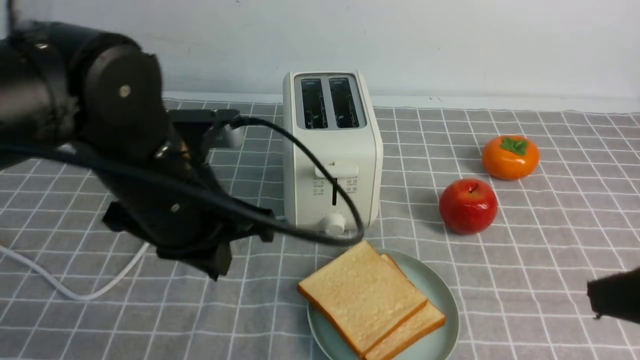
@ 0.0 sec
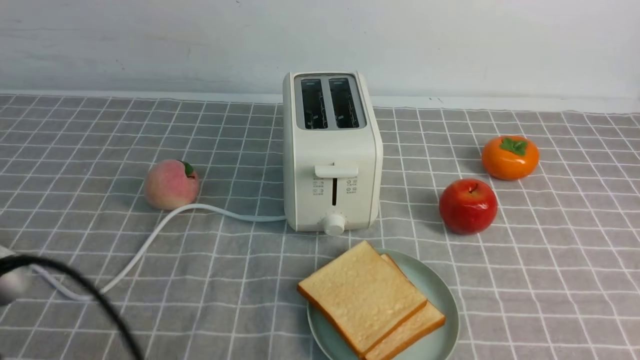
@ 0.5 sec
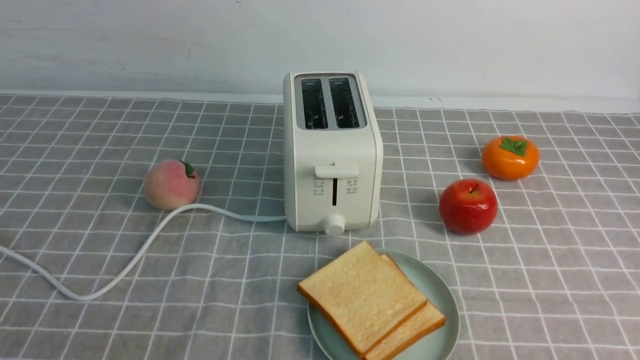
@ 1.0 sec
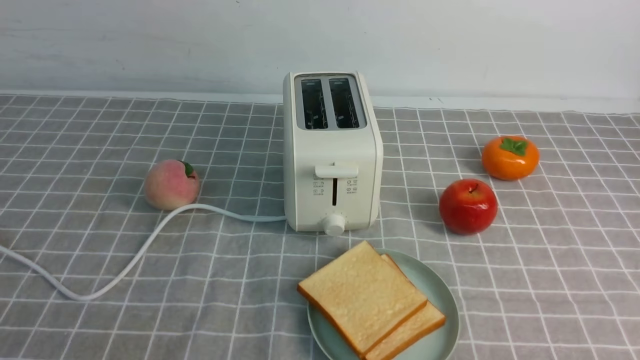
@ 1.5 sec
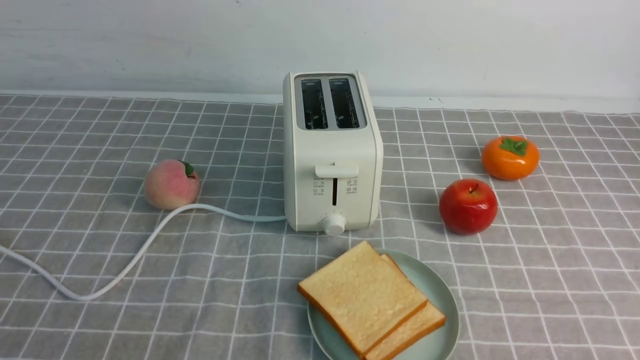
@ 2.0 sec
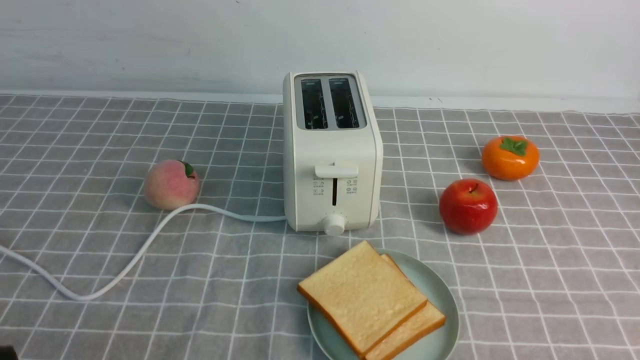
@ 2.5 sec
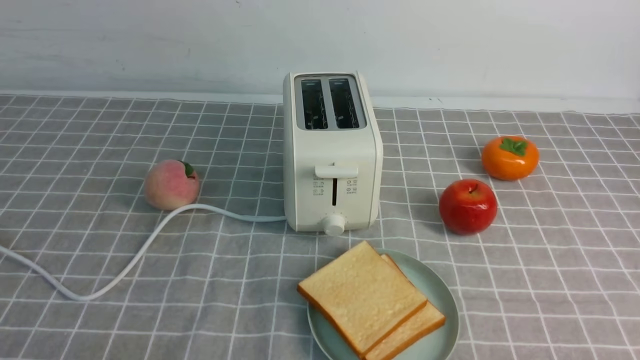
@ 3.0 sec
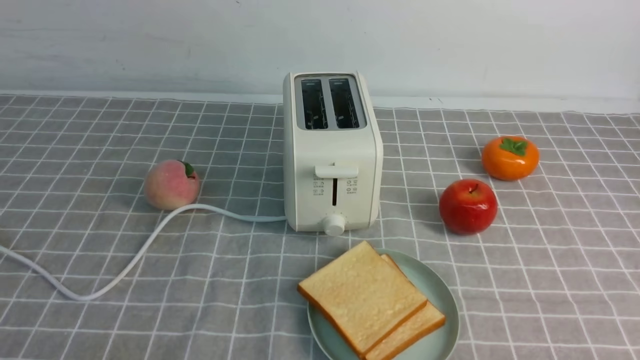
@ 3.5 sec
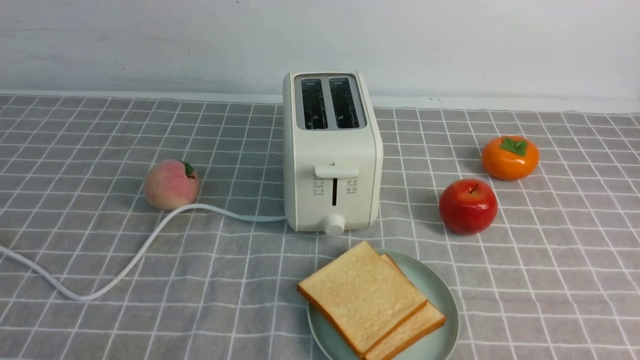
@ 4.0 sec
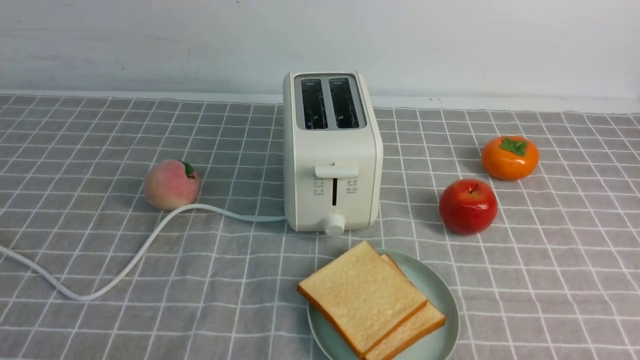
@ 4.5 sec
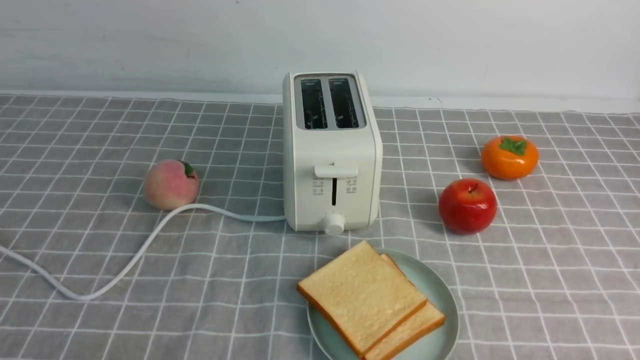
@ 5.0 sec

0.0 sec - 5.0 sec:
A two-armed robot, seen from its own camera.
Task of the whole recording: take toasted bread from bread machine on grey coffee table place on plate.
0.0 sec - 2.5 sec: The right gripper moves downward and backward, approximately 10 cm, and closes its fingers. The left gripper heads backward and to the left, covering approximately 25 cm.

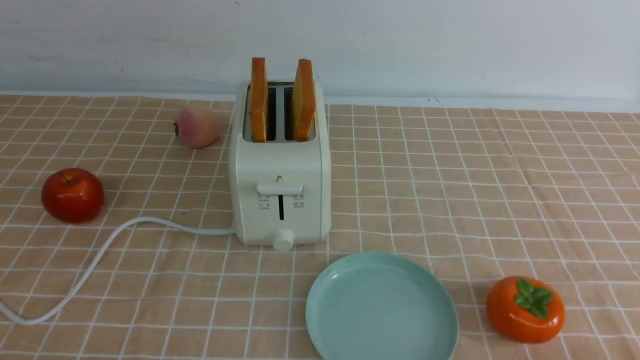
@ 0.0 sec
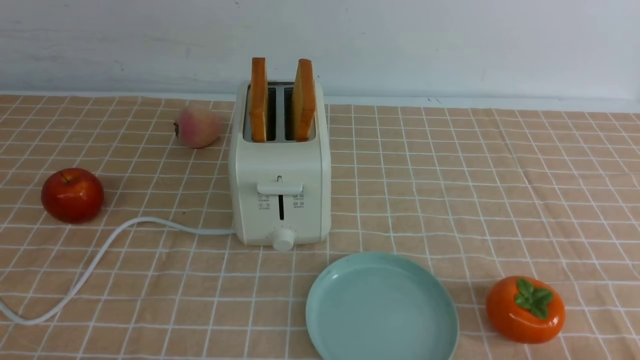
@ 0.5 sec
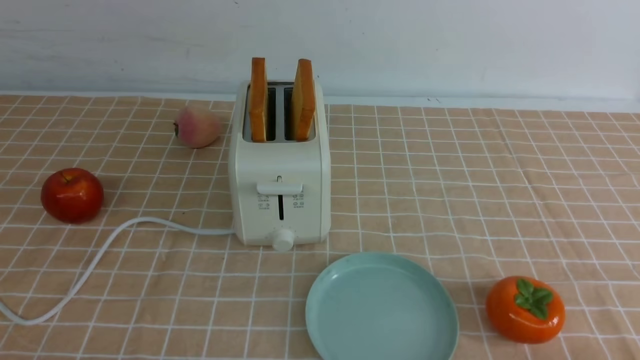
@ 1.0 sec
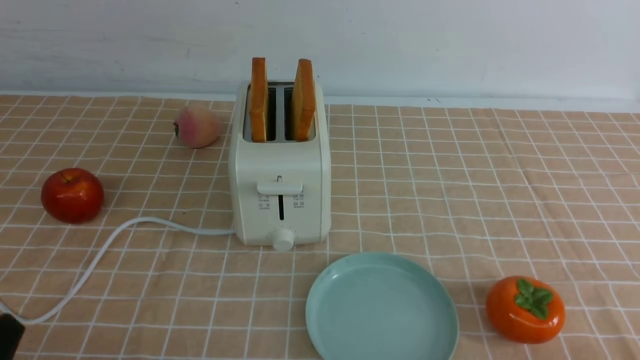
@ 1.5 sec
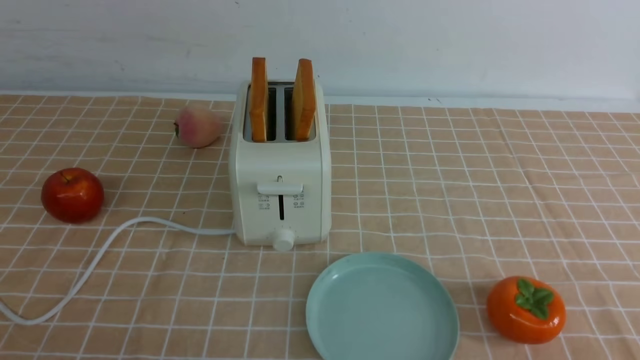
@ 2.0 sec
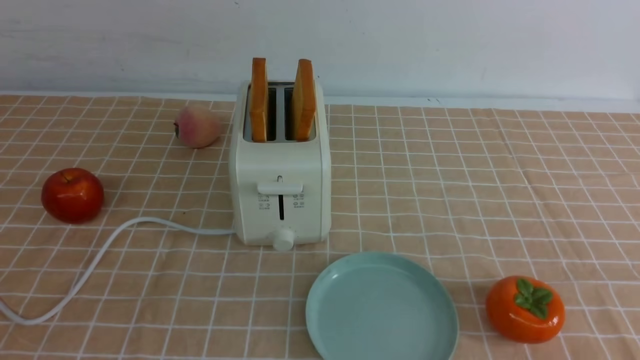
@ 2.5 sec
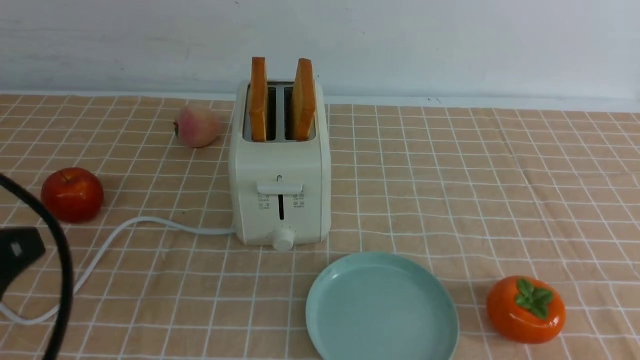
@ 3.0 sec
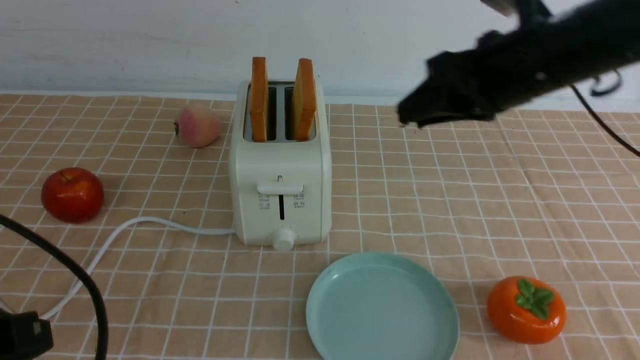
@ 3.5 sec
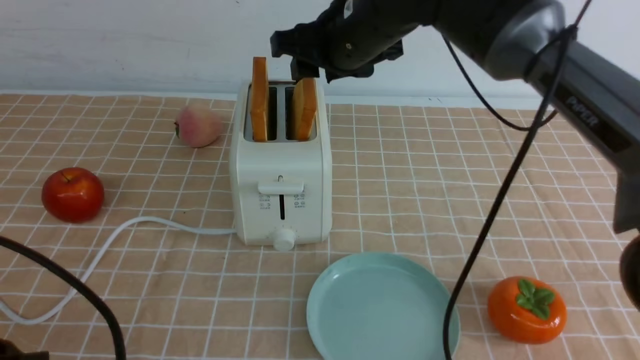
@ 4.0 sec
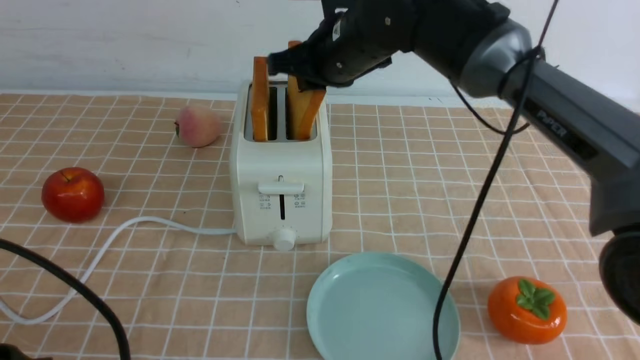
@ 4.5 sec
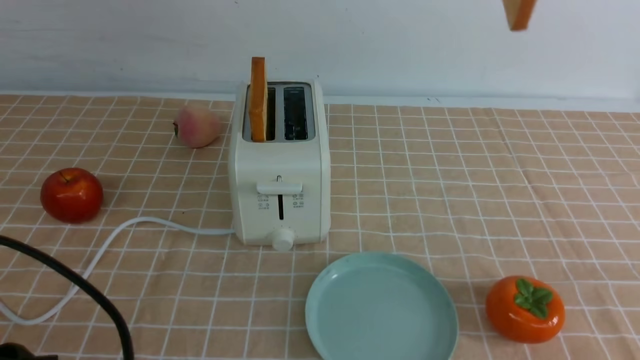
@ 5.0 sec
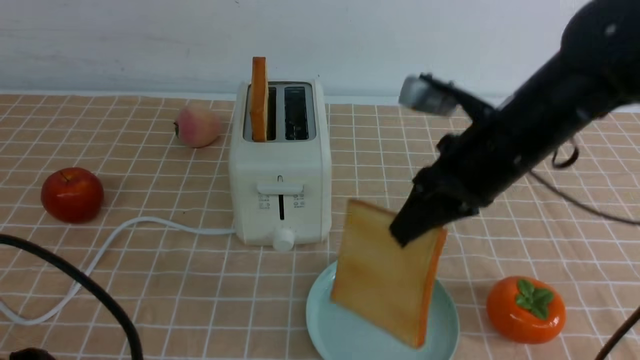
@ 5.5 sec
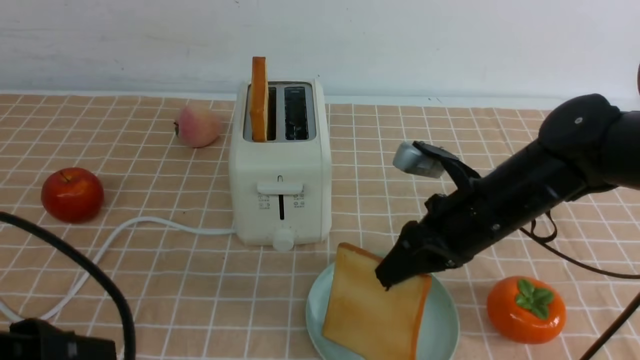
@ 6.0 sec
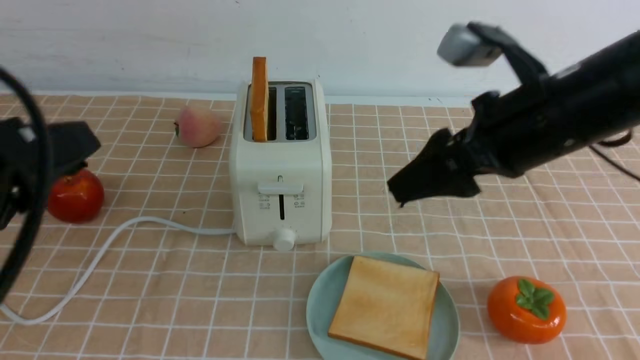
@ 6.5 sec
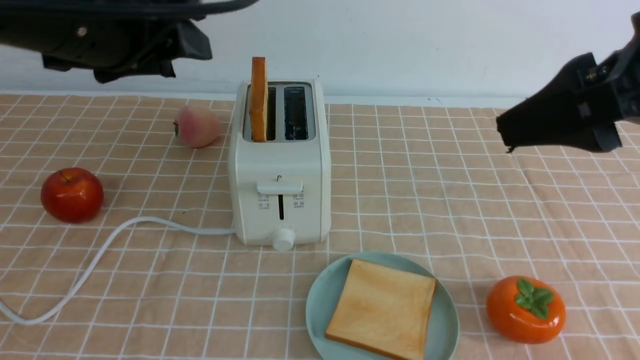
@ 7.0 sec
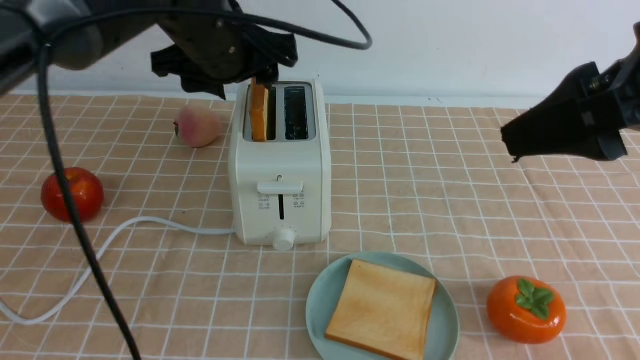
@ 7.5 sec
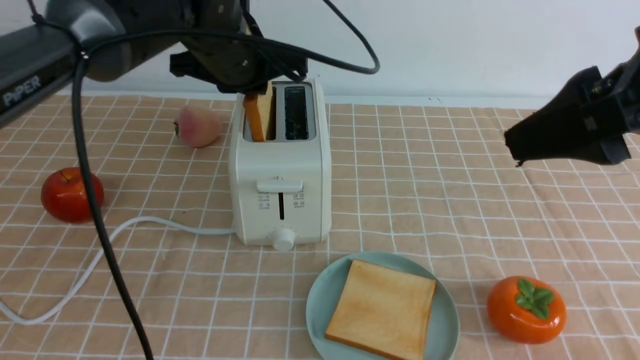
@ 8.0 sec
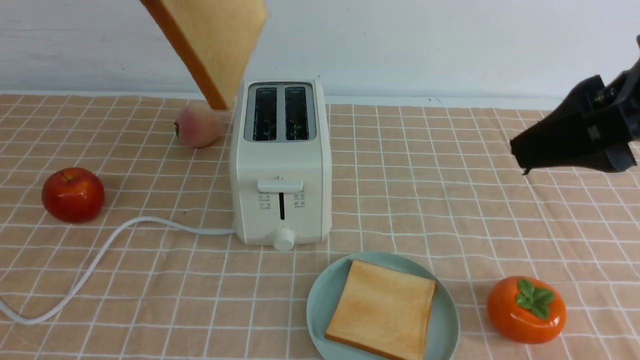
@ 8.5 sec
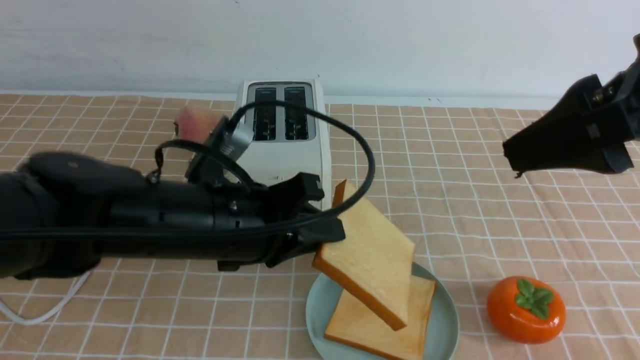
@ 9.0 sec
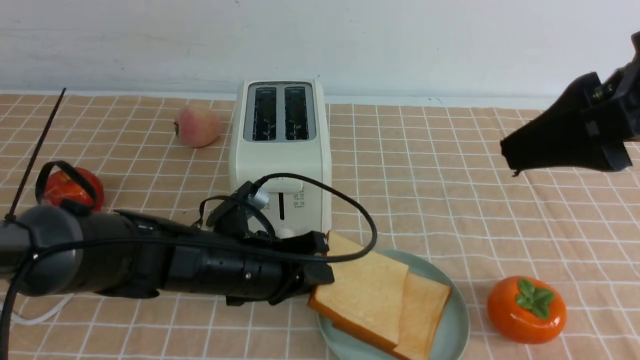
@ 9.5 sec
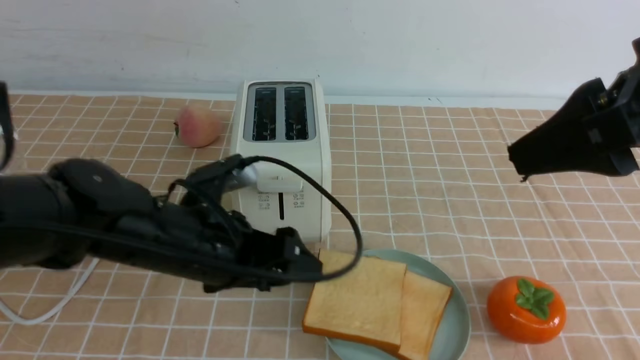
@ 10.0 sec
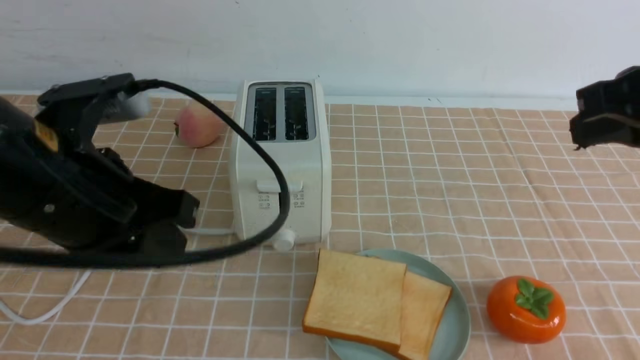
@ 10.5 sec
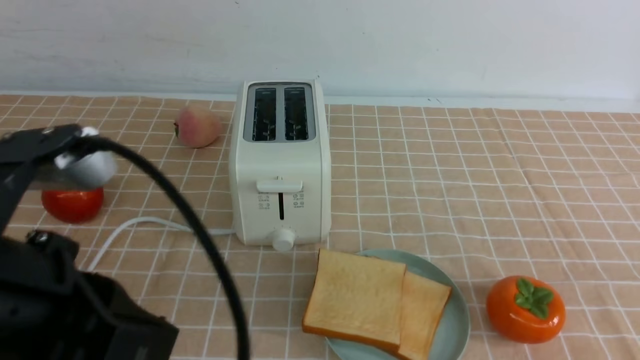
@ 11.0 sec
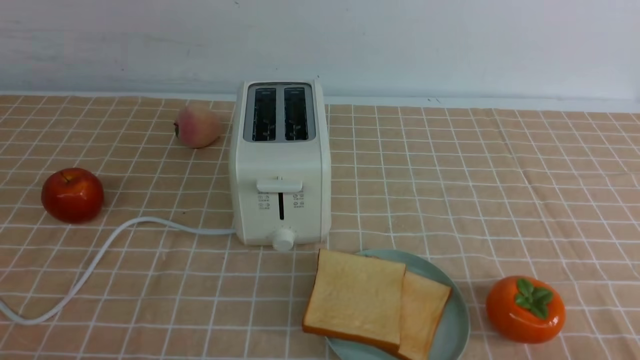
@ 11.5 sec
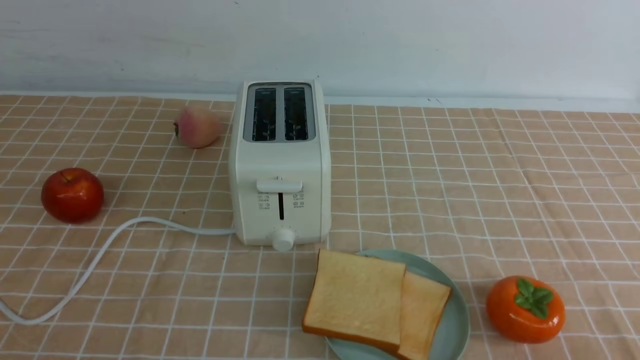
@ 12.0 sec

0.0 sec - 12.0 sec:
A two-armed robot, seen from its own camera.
Task of the whole recording: take toasted bread from bread machine on light coffee tablecloth place on plate.
Step, 0.0 sec - 4.5 sec: use the right arm to take out a slice of bread.
Step, 5.0 sec - 6.0 sec: use the right arm to put a slice of bread into the plate.
Step, 6.5 sec - 8.0 sec: use the left arm to take out a slice of bread.
Step, 8.5 sec - 9.5 sec: use the left arm to put a slice of bread into the empty plate.
2.0 sec - 4.0 sec: The left gripper travels upward by approximately 5 cm. The right gripper is displaced forward and to the left by roughly 50 cm.
4.0 sec - 6.0 sec: The right gripper goes roughly 20 cm to the right, downward and backward.
6.0 sec - 8.0 sec: The left gripper heads forward, covering approximately 30 cm, and opens and closes again, while the right gripper goes about 20 cm upward and backward, and opens up.
8.0 sec - 10.0 sec: The left gripper moves up and down over approximately 30 cm, changing direction 2 times, and opens.
10.0 sec - 12.0 sec: The right gripper heads downward, backward and to the right, covering some 25 cm, and closes up. The left gripper heads backward and to the left, covering approximately 30 cm, and closes.

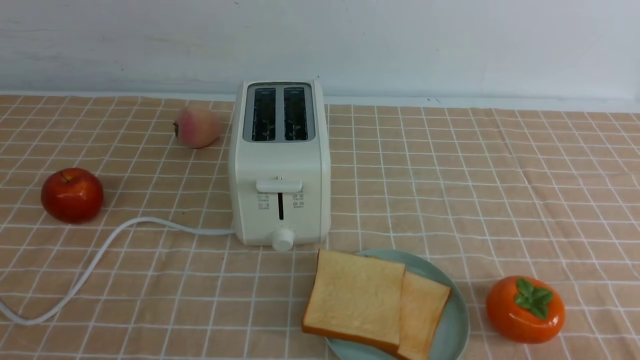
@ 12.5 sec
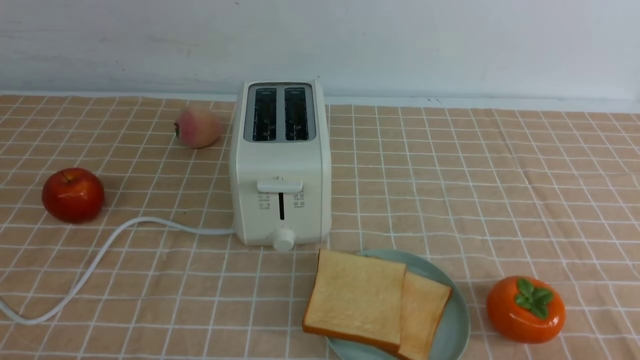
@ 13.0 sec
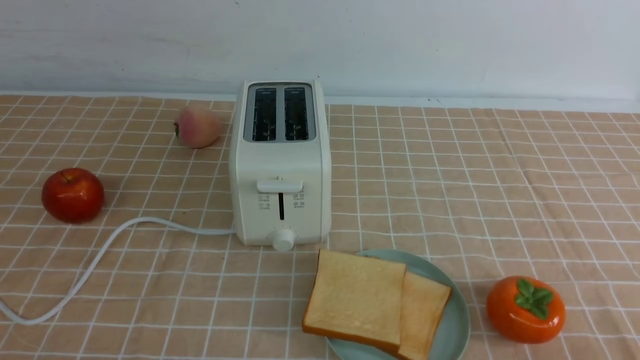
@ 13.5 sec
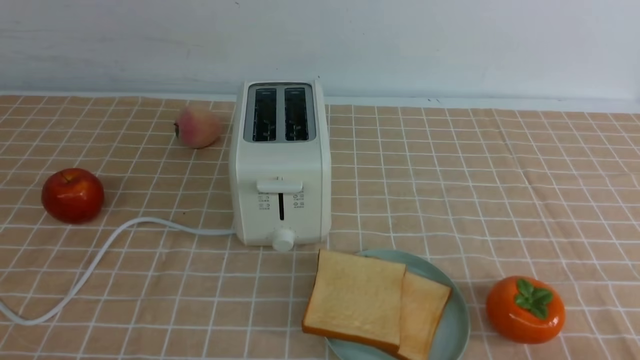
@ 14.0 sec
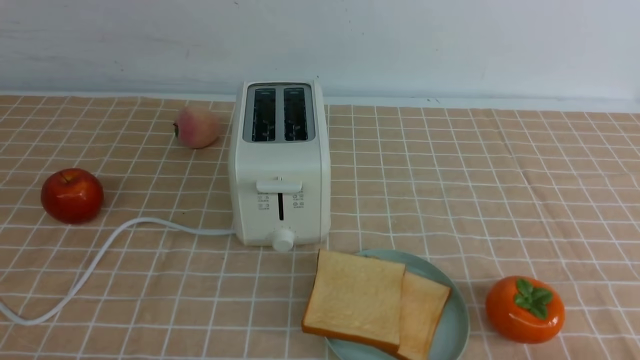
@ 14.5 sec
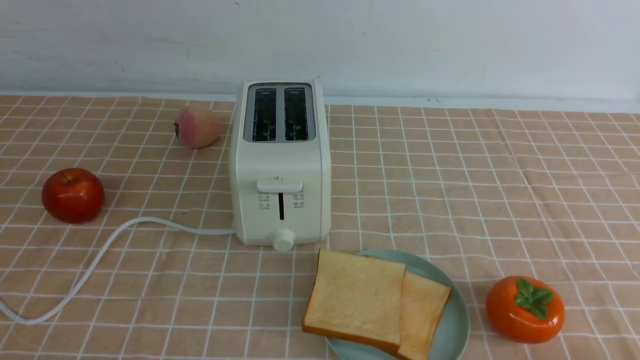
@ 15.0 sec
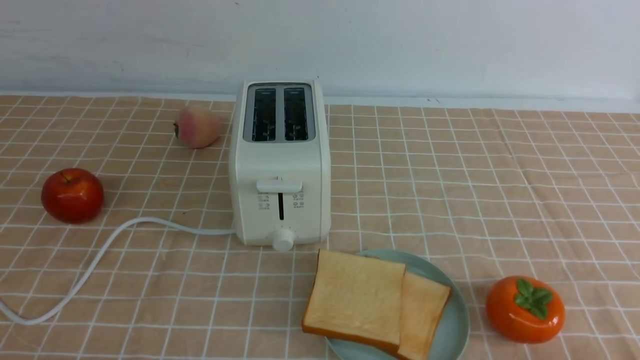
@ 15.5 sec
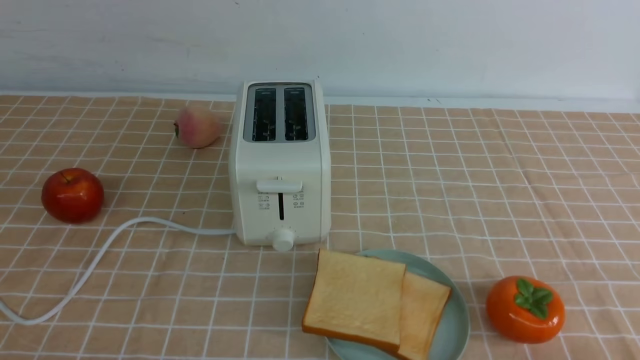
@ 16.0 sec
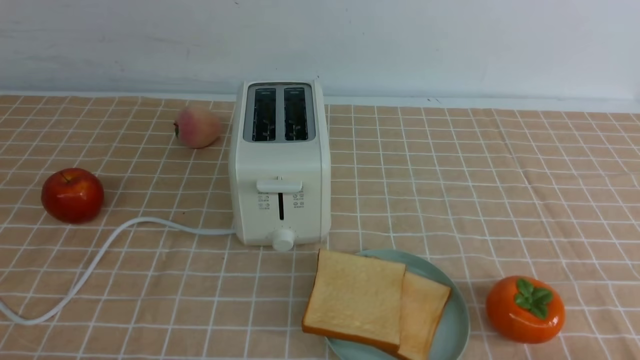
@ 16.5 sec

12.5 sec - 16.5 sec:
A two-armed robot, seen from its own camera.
Task of the whole recording: take toasted bread from bread machine on light coffee tablecloth place on plate.
14.5 sec - 16.5 sec: Neither gripper changes place.
